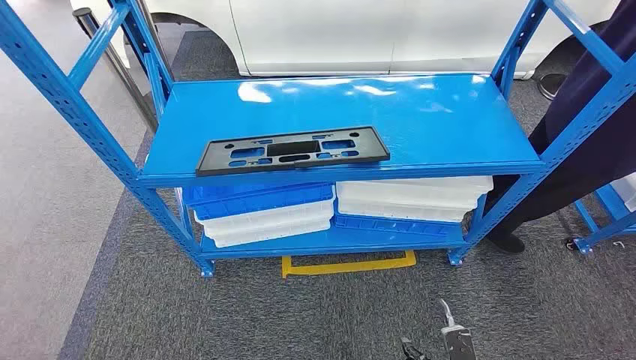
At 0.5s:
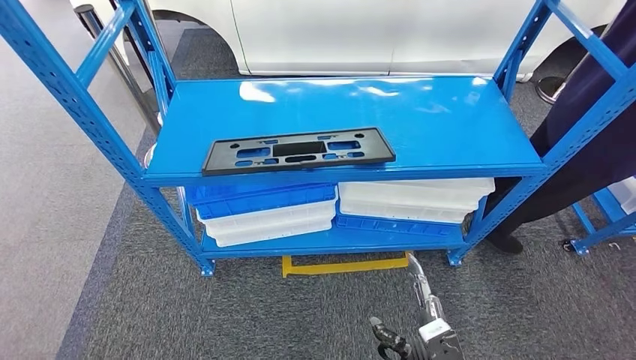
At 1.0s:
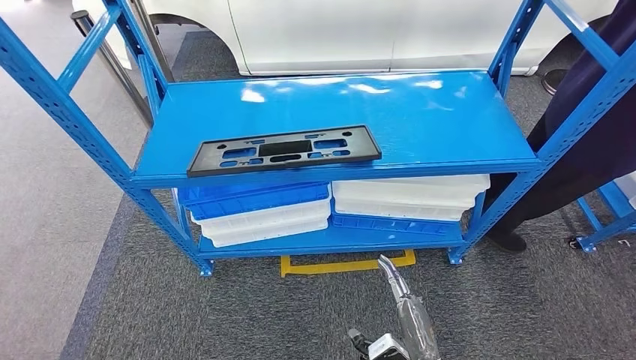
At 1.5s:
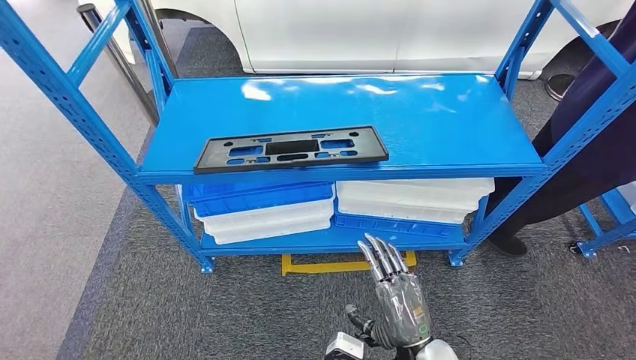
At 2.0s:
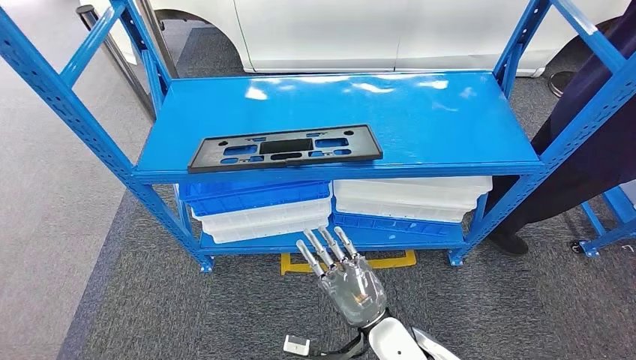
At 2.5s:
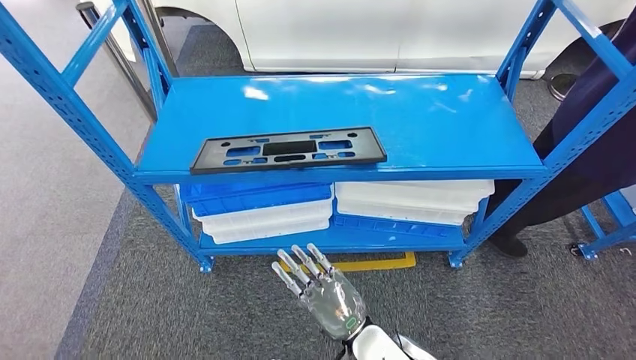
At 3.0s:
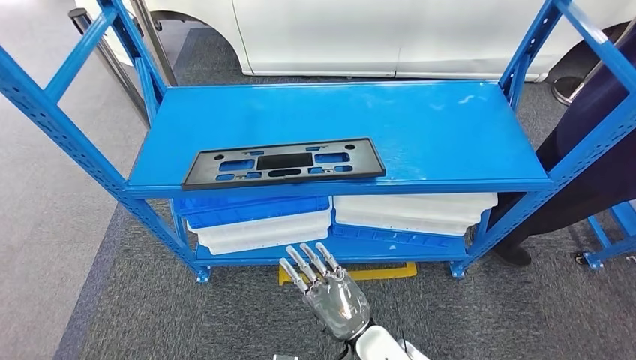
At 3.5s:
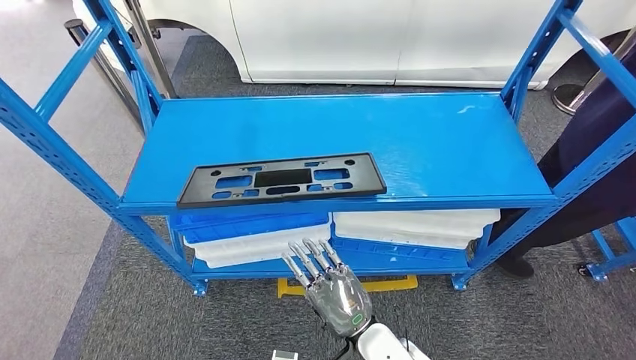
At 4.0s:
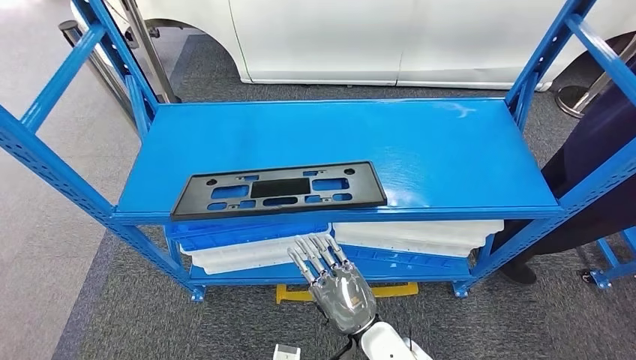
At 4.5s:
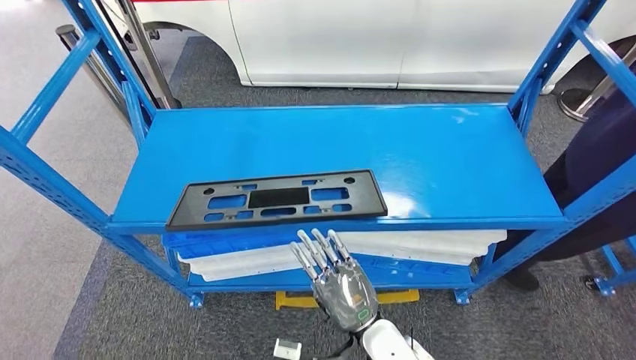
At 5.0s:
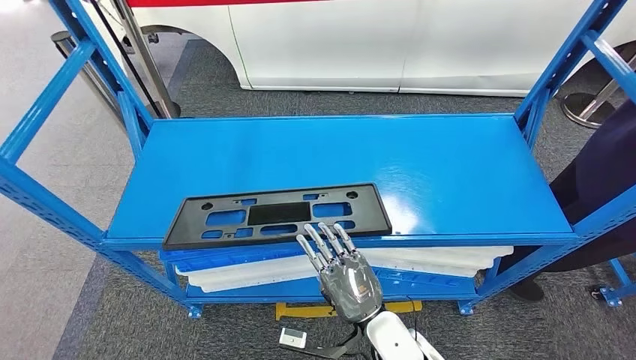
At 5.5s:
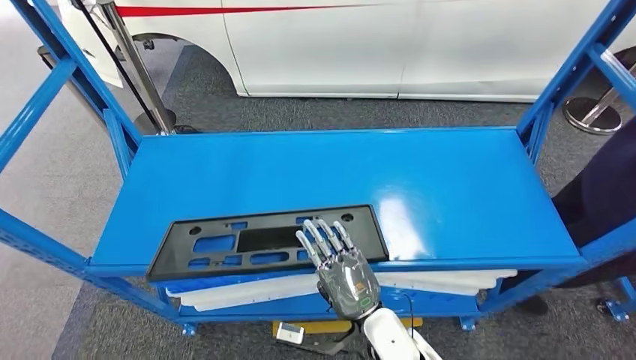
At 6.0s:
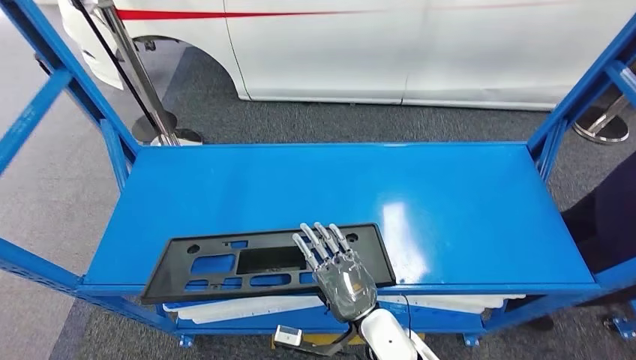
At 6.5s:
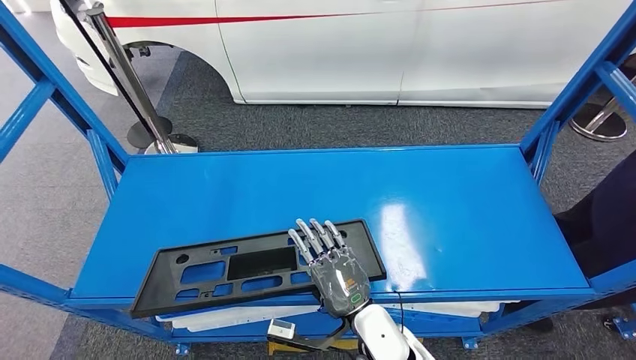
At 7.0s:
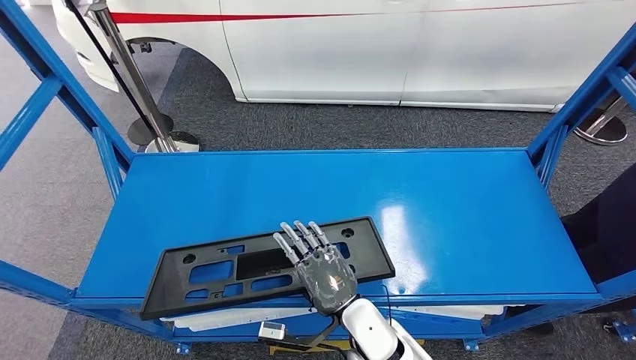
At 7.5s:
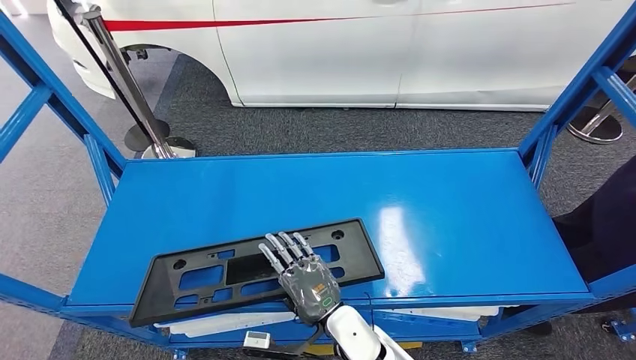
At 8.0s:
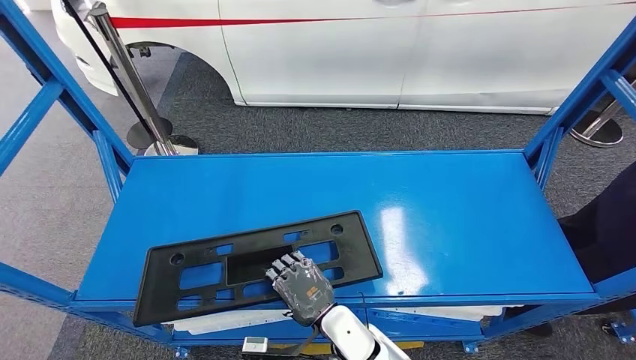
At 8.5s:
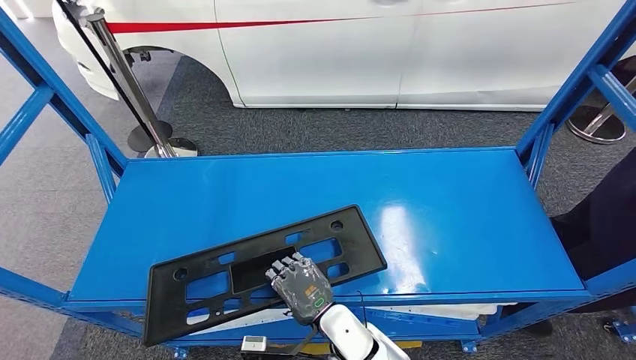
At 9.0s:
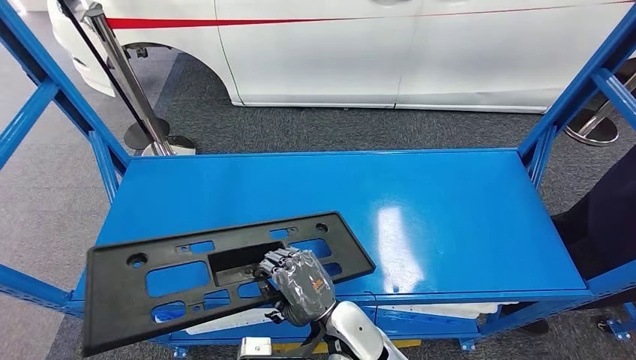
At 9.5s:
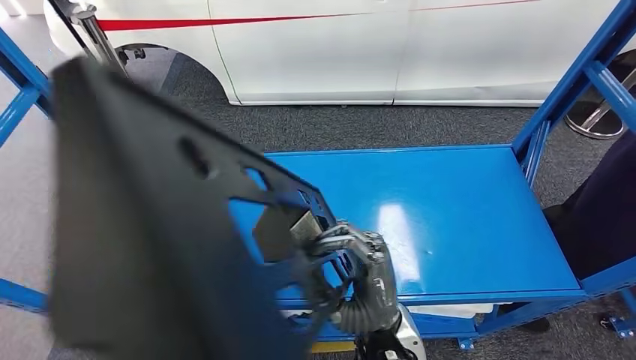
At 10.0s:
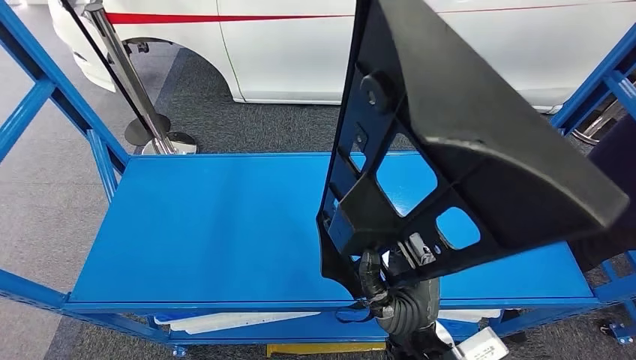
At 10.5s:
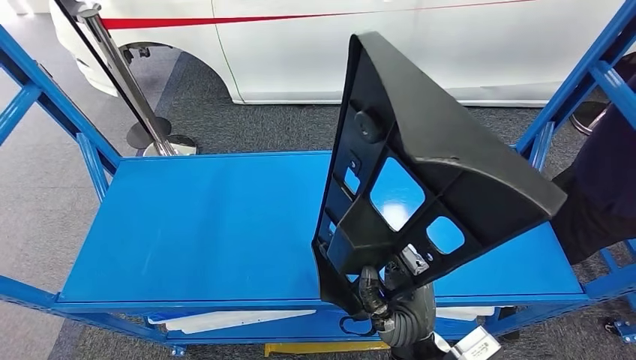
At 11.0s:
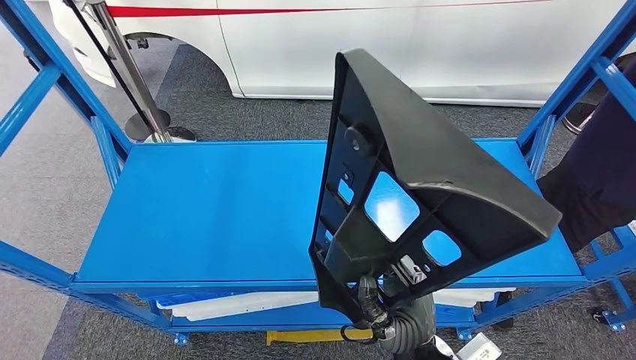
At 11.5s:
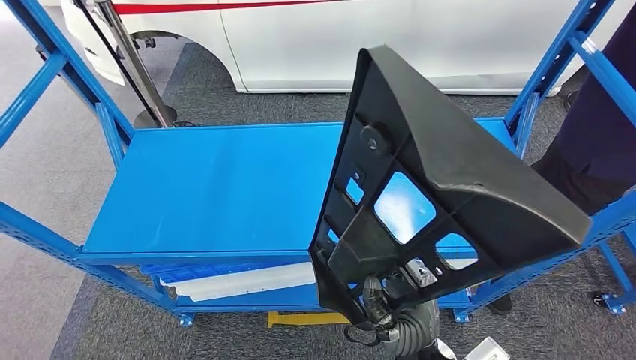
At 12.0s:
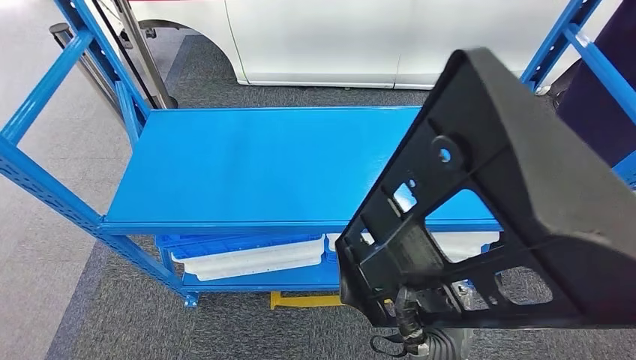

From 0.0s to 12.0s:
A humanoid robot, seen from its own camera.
Step, from 0.0s to 9.0s: Pick up the large material from the shelf.

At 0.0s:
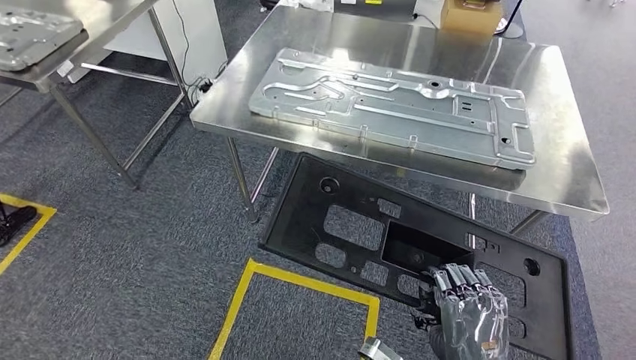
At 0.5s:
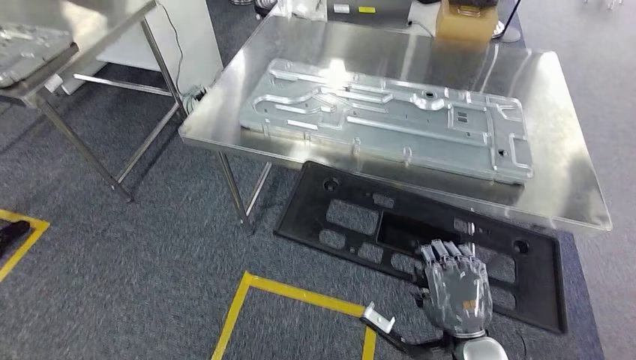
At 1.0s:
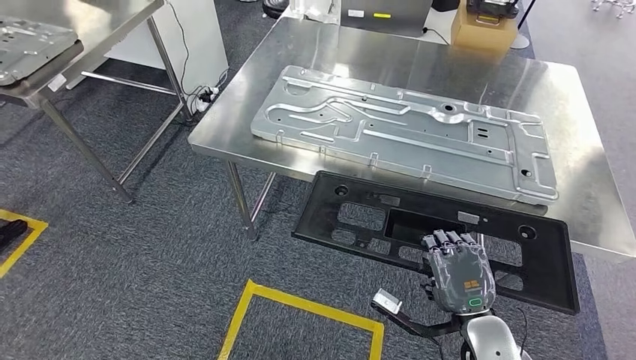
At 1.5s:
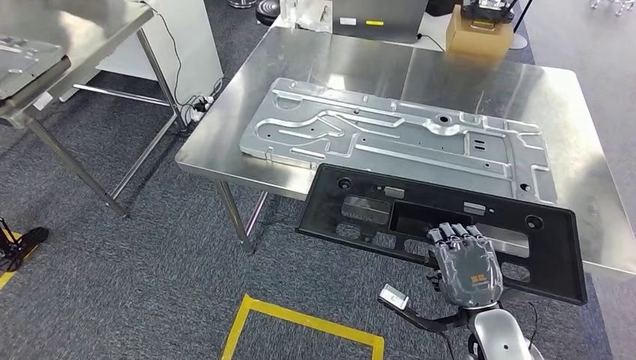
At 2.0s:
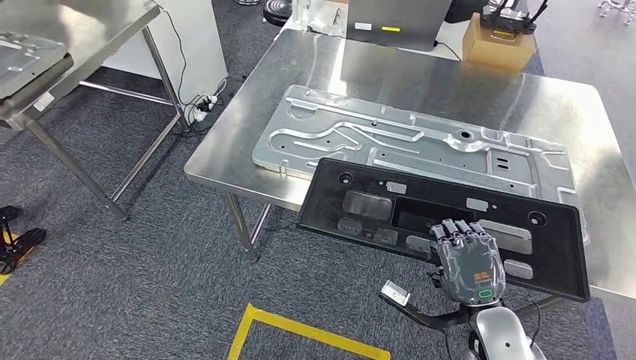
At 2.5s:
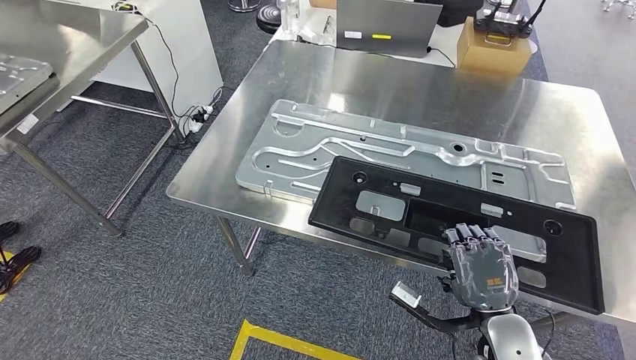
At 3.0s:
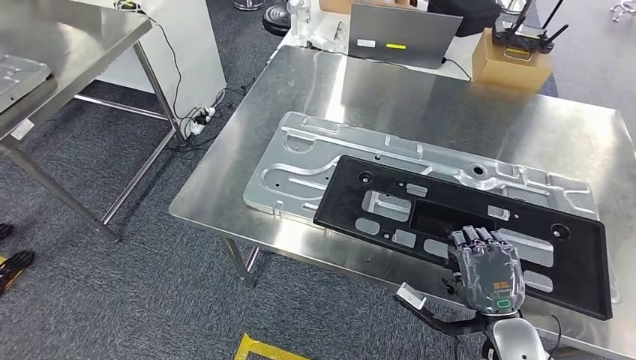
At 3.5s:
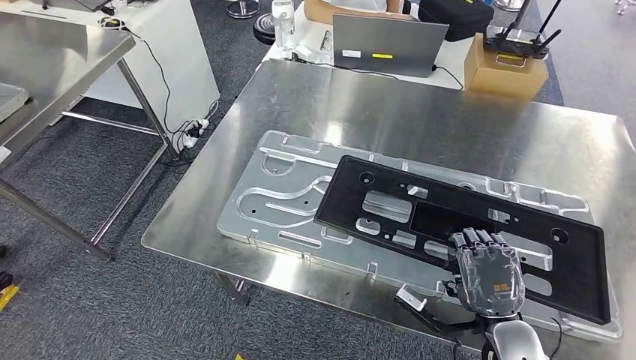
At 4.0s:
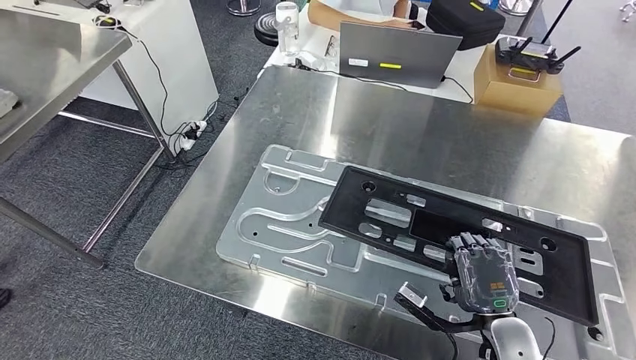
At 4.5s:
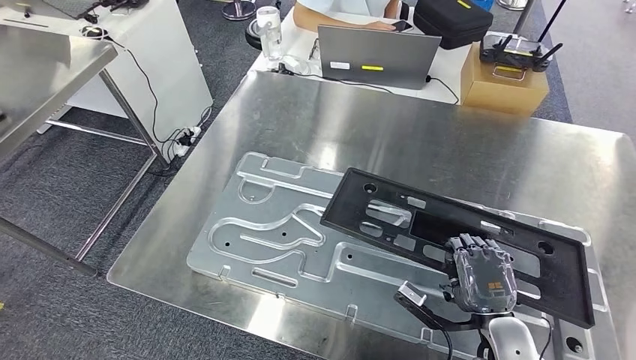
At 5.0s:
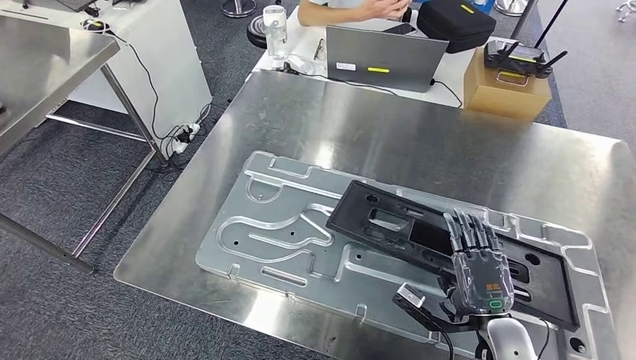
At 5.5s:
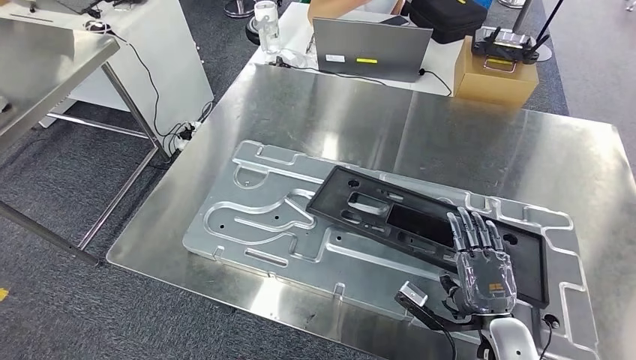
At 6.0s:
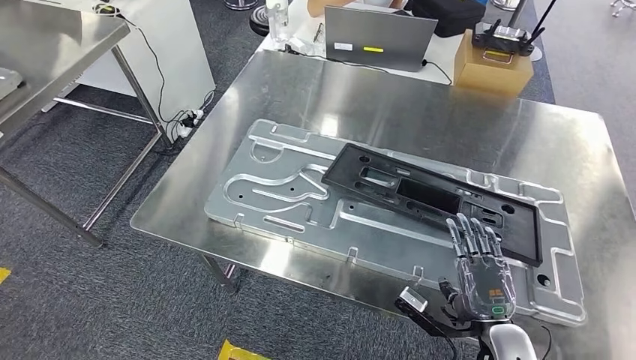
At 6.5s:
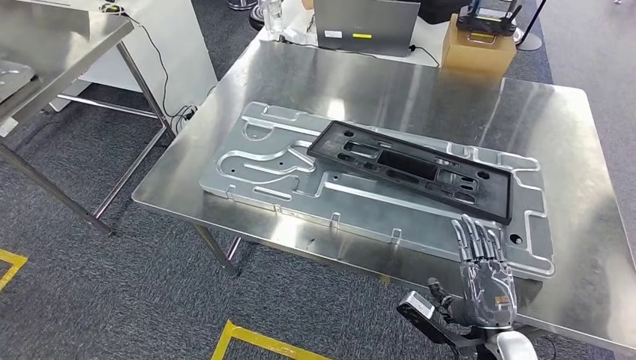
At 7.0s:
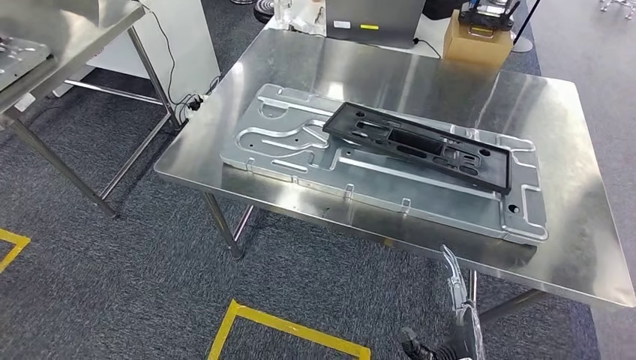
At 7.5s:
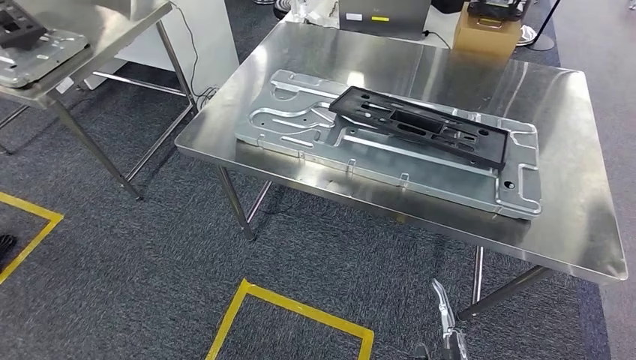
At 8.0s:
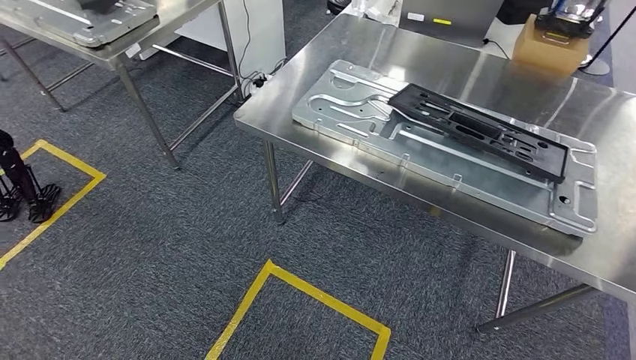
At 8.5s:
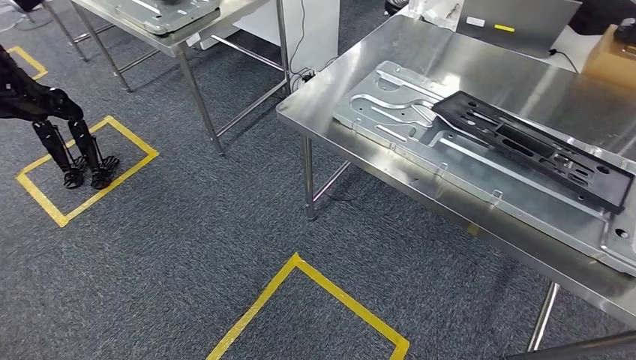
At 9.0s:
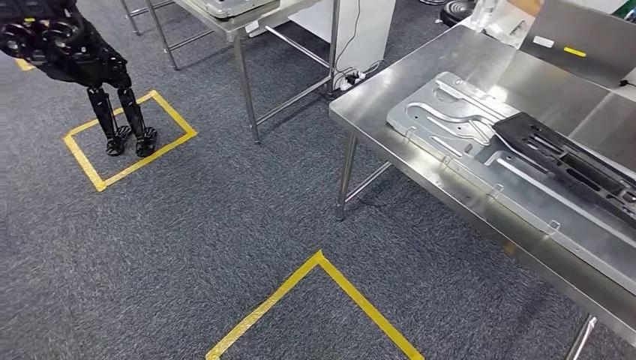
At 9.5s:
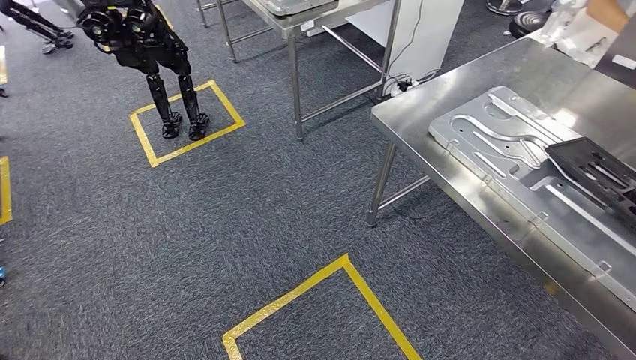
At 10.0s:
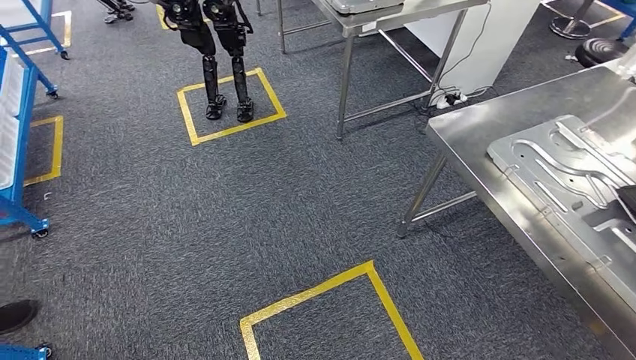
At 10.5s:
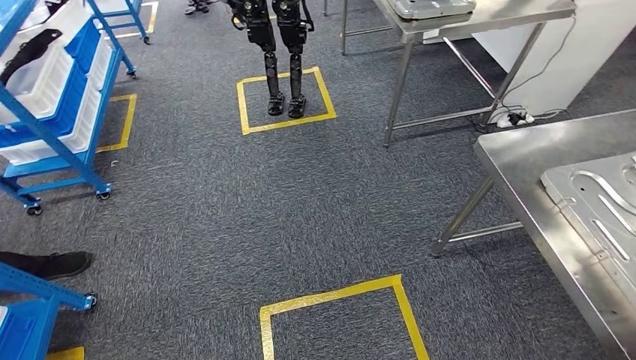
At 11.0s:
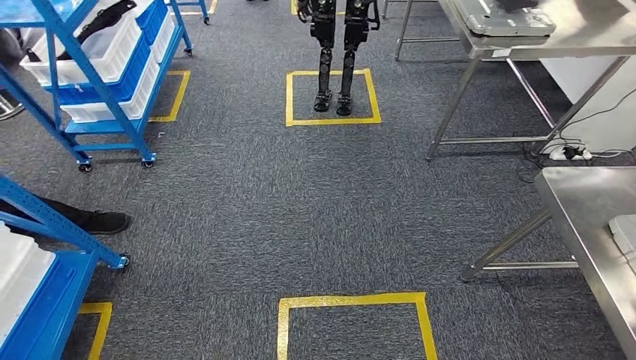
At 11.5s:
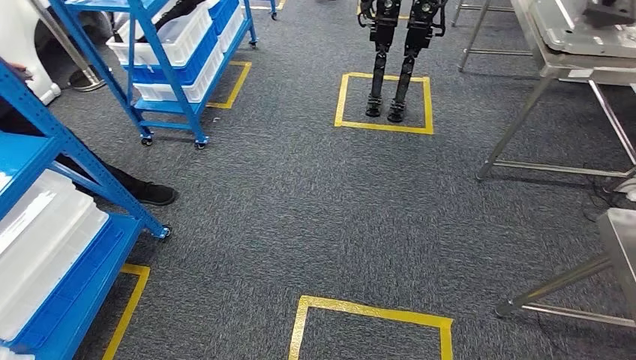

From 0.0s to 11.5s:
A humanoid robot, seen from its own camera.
Step, from 2.0s to 7.5s: Insert the large material into the corresponding slot on the workbench.
